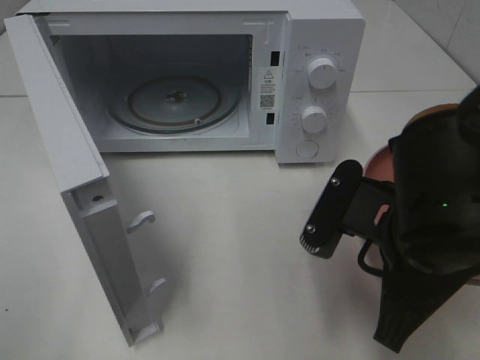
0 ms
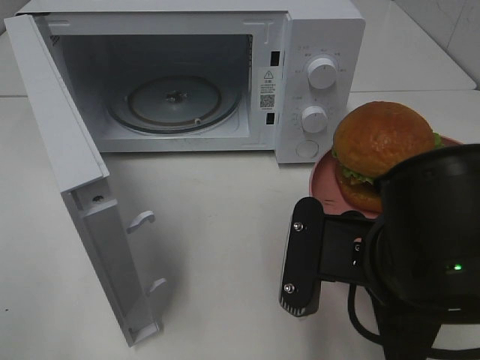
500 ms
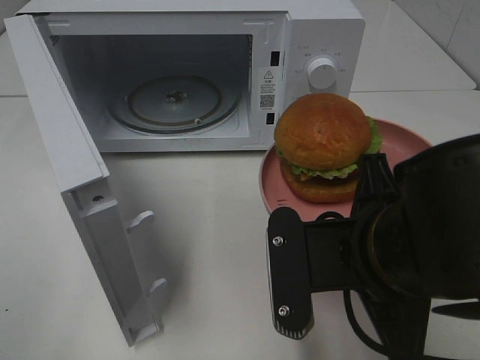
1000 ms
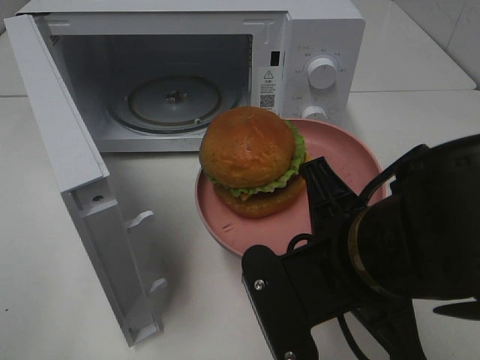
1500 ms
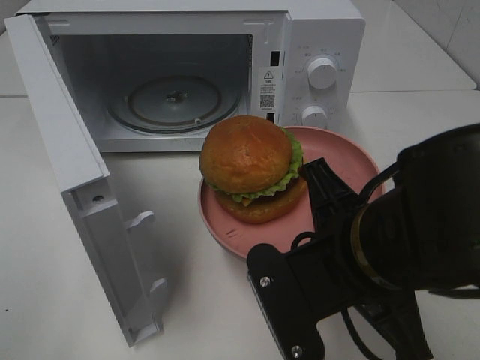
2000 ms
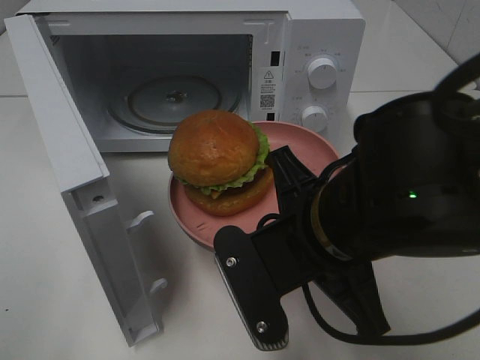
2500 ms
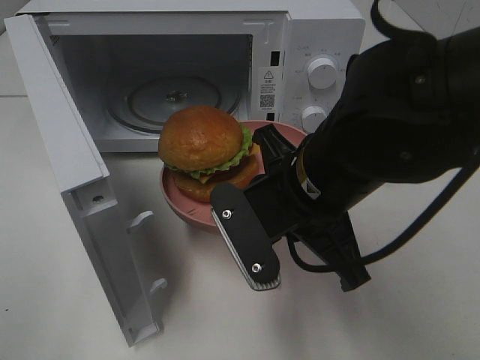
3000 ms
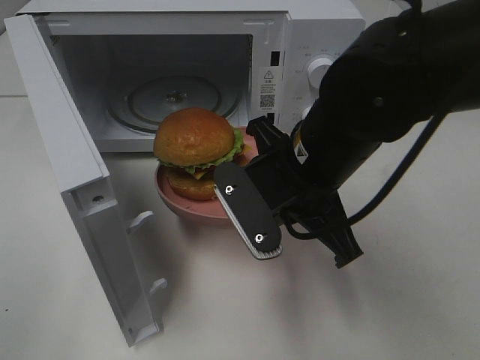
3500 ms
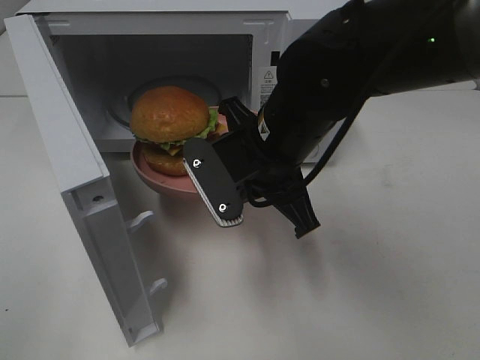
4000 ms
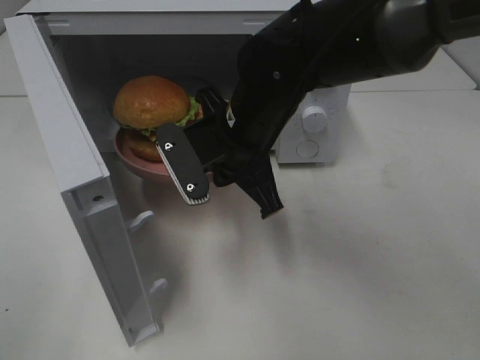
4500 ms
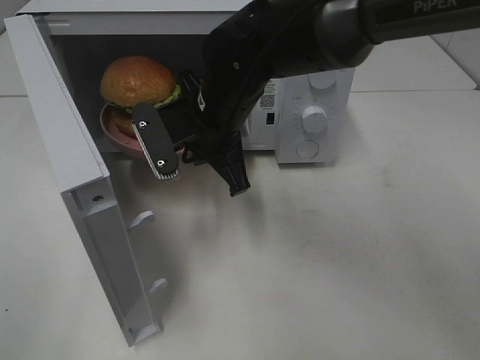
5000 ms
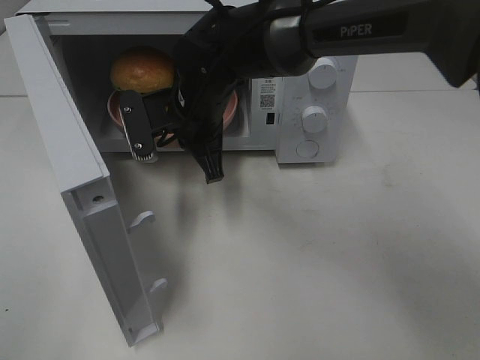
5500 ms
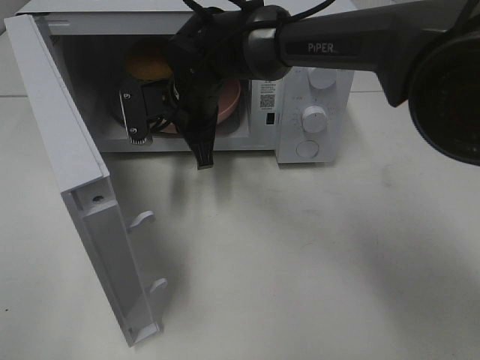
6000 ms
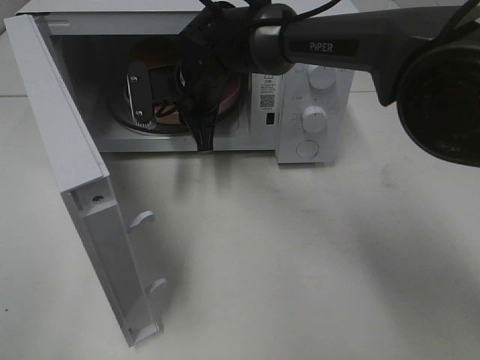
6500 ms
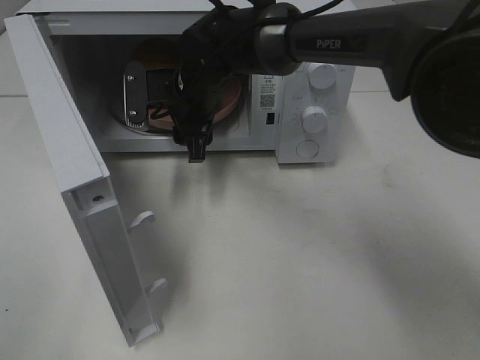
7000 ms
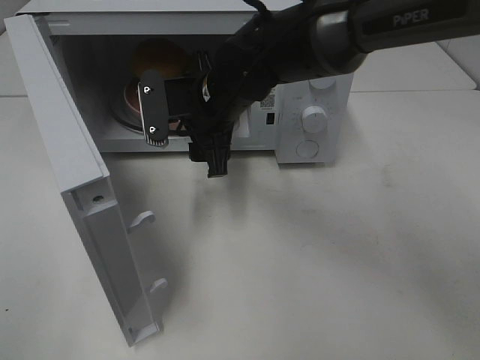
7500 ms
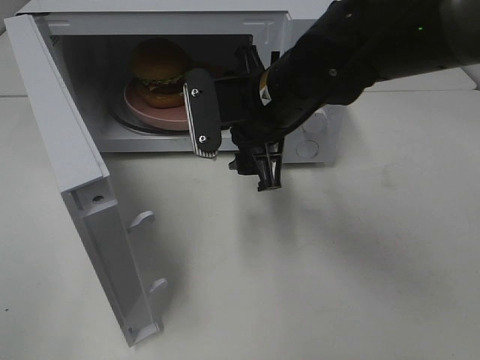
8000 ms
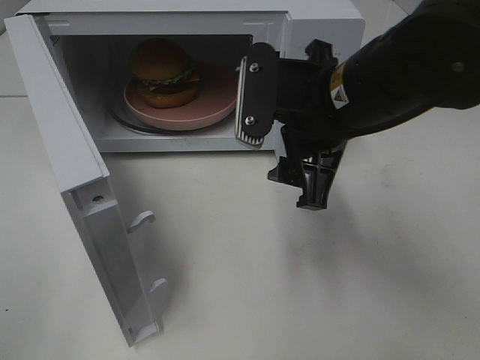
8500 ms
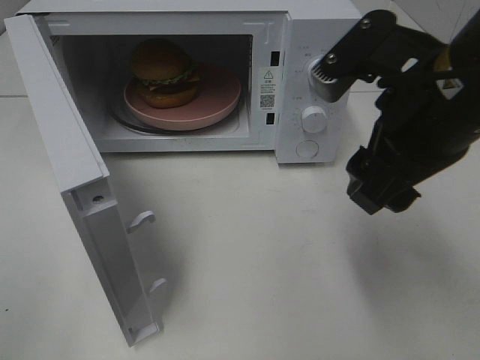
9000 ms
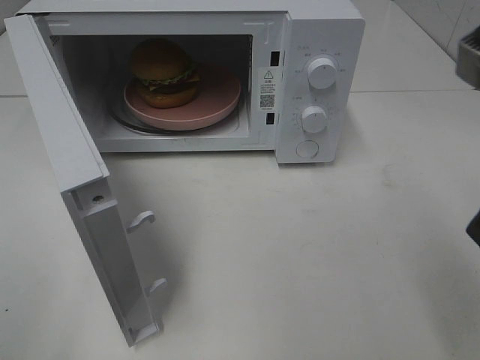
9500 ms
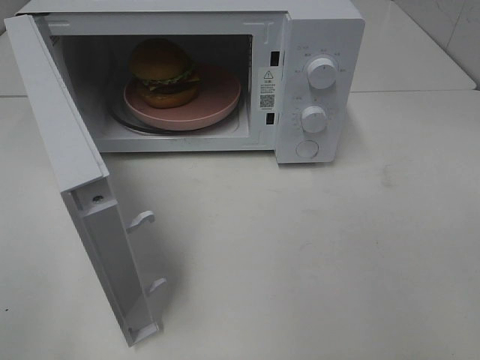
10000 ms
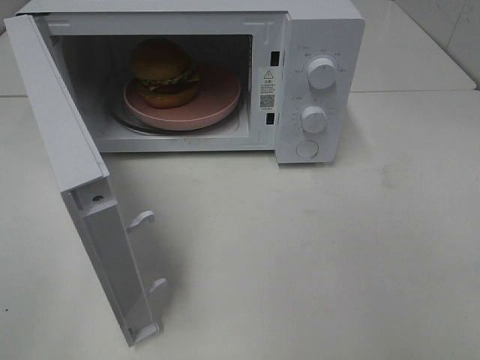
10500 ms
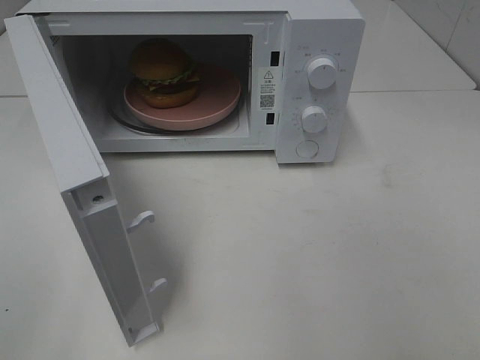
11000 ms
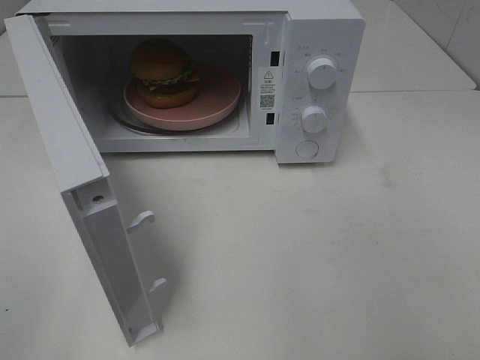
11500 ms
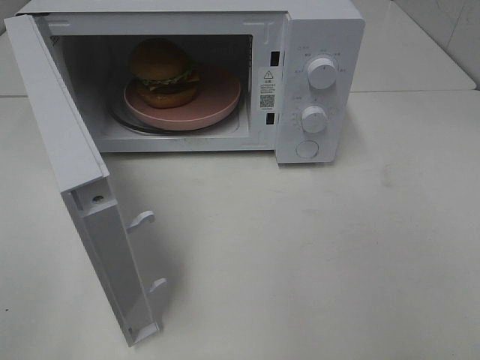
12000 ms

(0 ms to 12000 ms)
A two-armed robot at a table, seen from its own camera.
Task of the whole recording: Heat the burger.
Step, 0 ms - 6500 ms: Right hand: place the plate in the microwave.
2000 ms - 4000 ms: The right gripper heads forward, covering about 15 cm.
4000 ms - 6000 ms: The right gripper moves forward and to the left, about 15 cm.
6000 ms - 8000 ms: The right gripper is displaced to the right and backward by about 15 cm, and opens up.
8000 ms - 10000 ms: The right gripper travels backward, to the right and upward by about 35 cm.

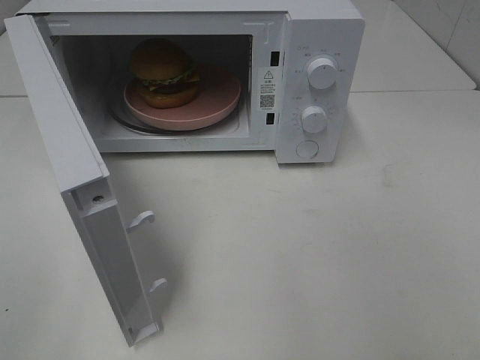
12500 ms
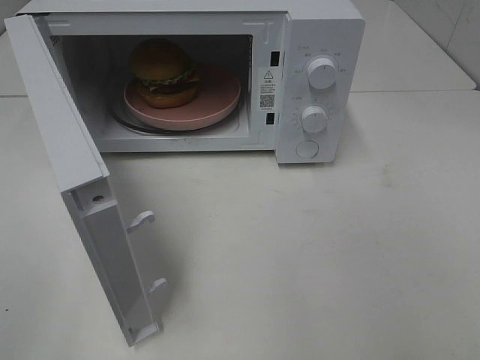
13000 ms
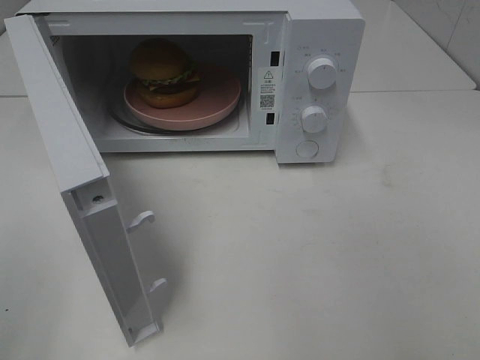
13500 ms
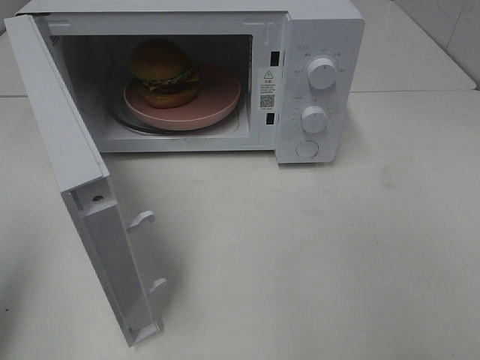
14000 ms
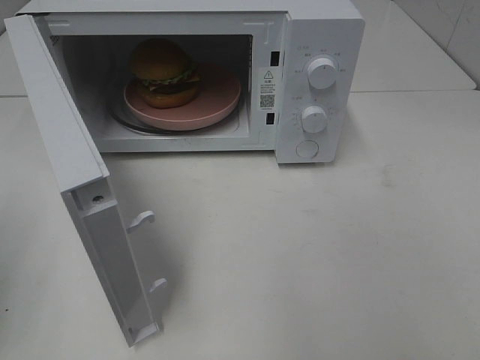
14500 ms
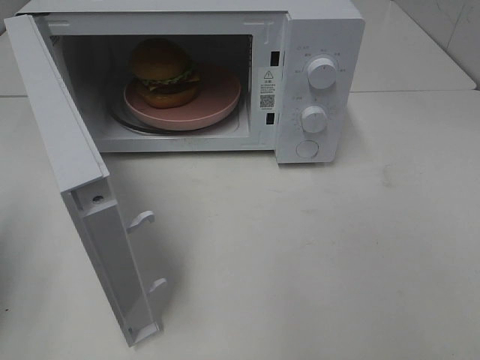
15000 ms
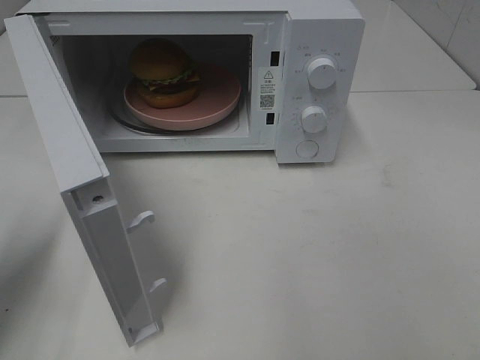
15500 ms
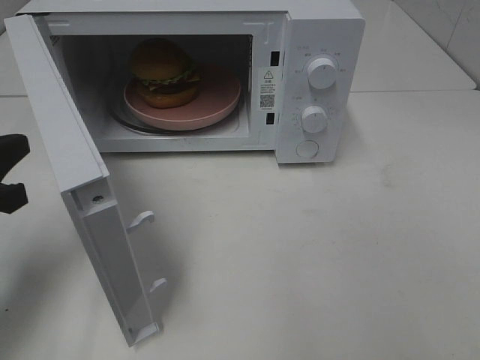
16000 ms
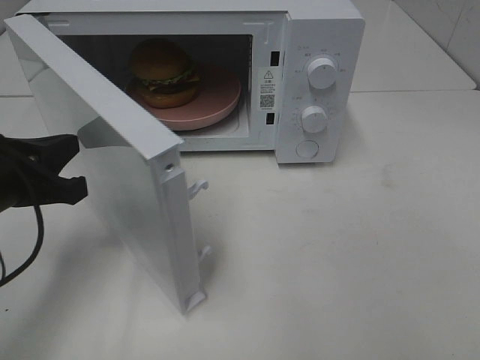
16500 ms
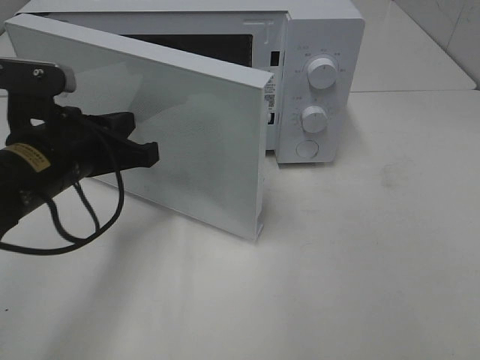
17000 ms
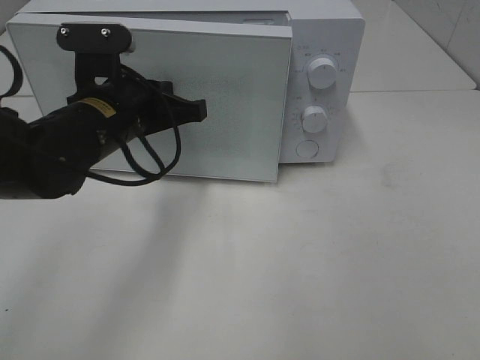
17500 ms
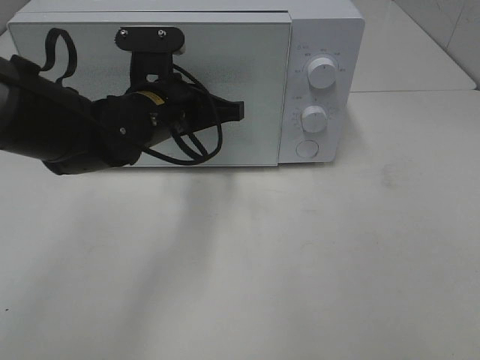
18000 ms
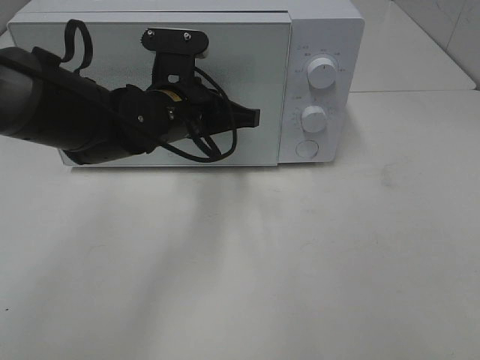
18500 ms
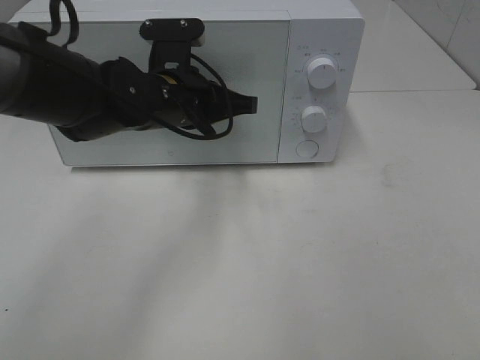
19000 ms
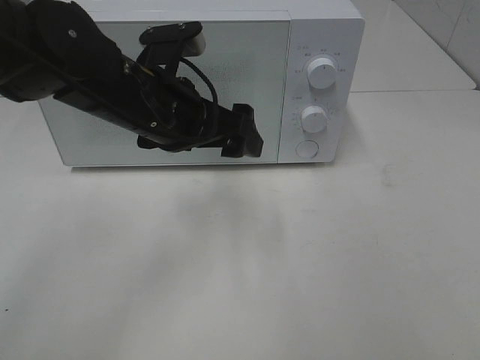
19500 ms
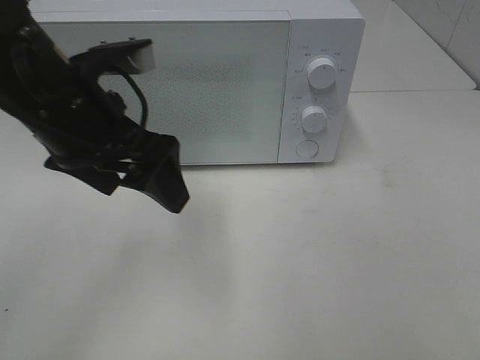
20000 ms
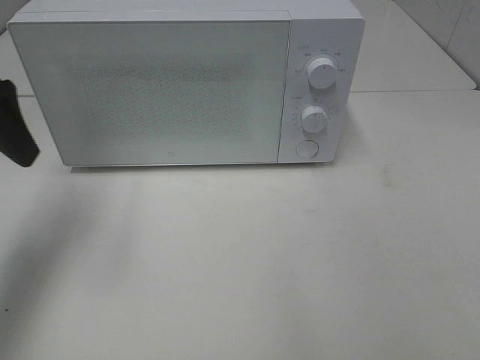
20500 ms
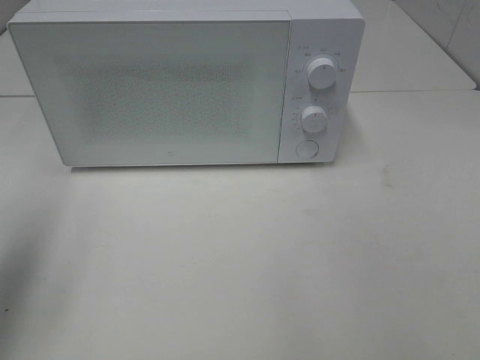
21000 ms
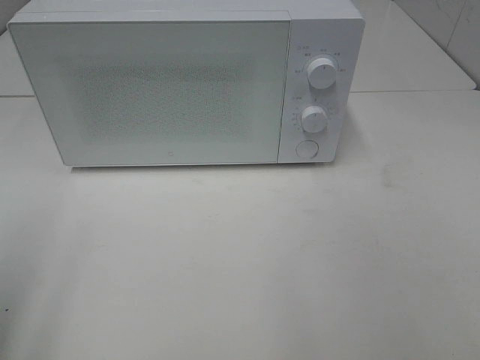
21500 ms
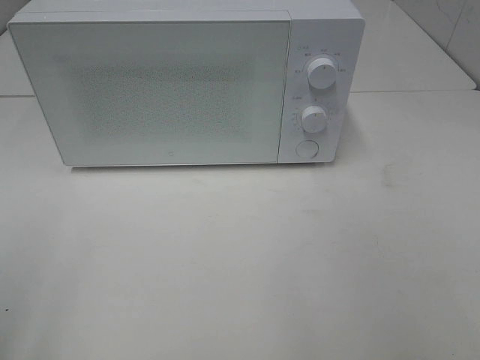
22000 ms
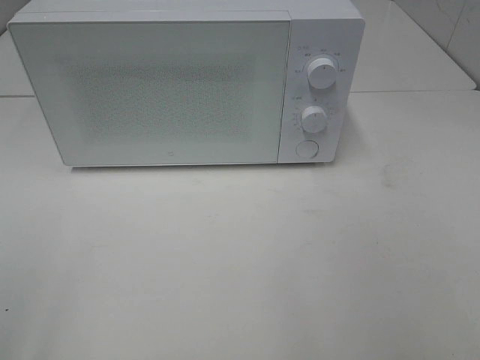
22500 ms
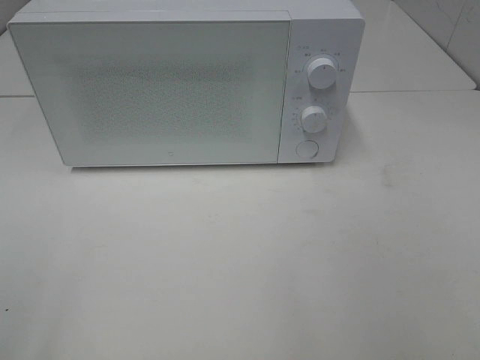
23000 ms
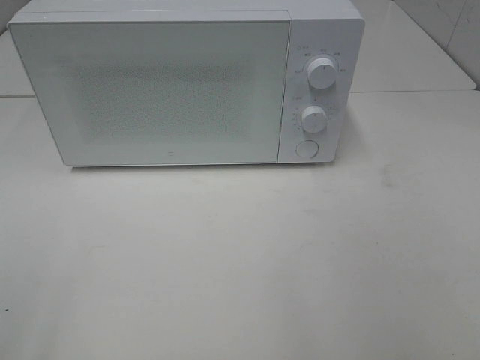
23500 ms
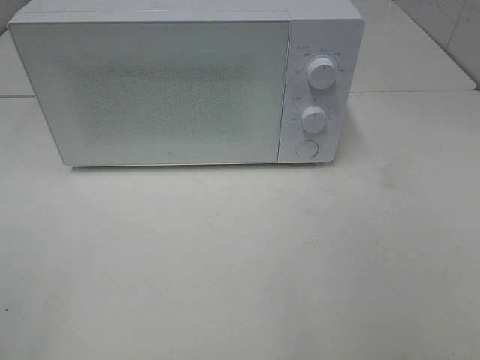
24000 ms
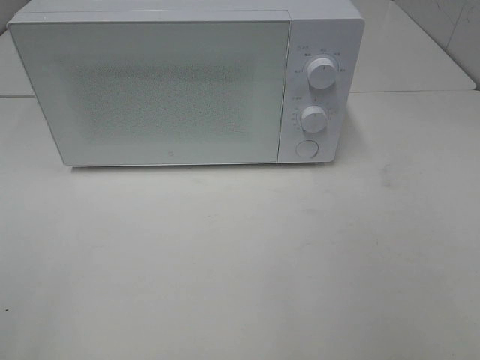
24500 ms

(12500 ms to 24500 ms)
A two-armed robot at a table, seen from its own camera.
Task of the whole recording: Heat the burger.
Step, 12500 ms - 19000 ms: Left hand: close the microwave door.
14500 ms - 16500 ms: The left gripper is displaced to the right, forward and downward by about 15 cm.
16500 ms - 18500 ms: The left gripper shifts about 20 cm to the right and forward.
18500 ms - 20500 ms: The left gripper shifts roughly 25 cm to the left and upward, and opens up.
20500 ms - 22500 ms: The left gripper shifts some 25 cm backward.

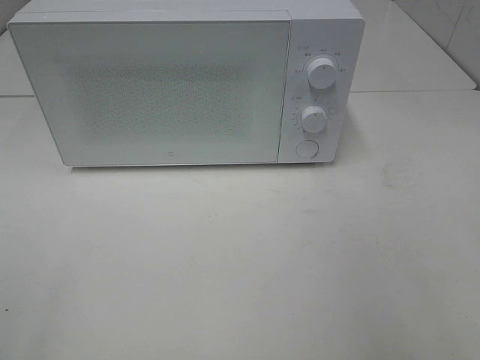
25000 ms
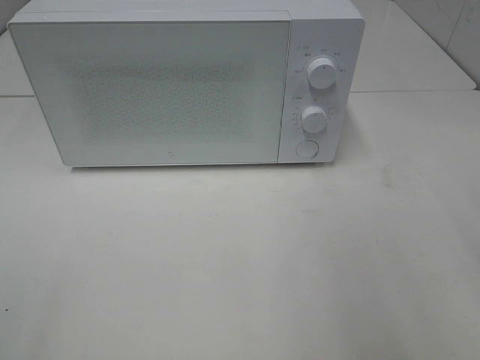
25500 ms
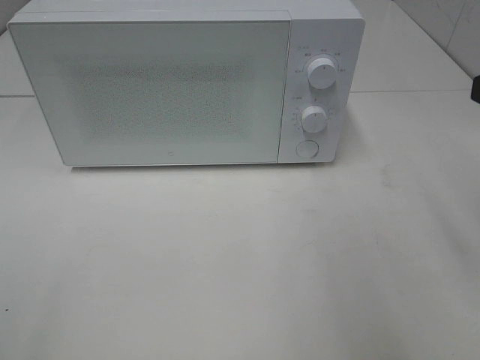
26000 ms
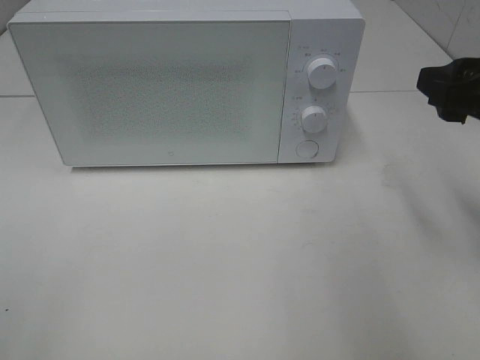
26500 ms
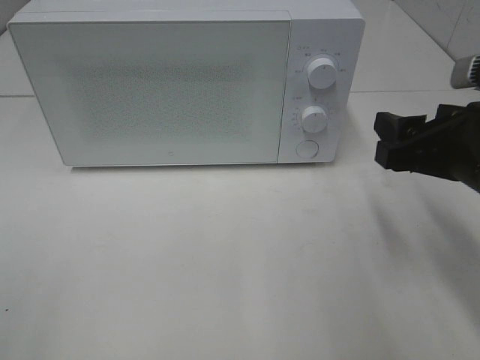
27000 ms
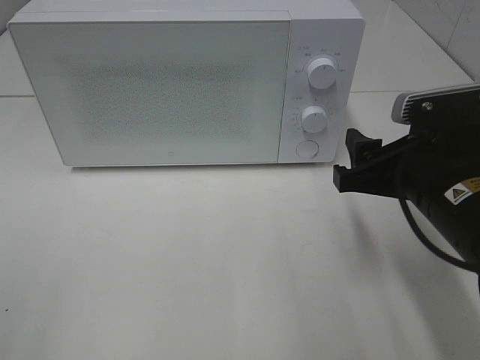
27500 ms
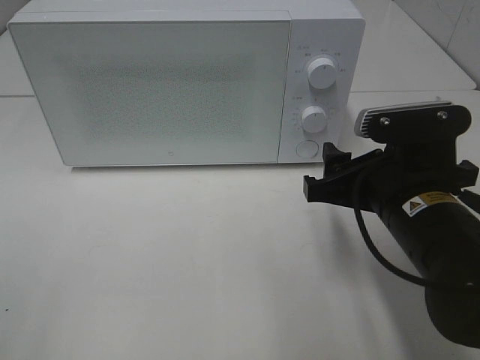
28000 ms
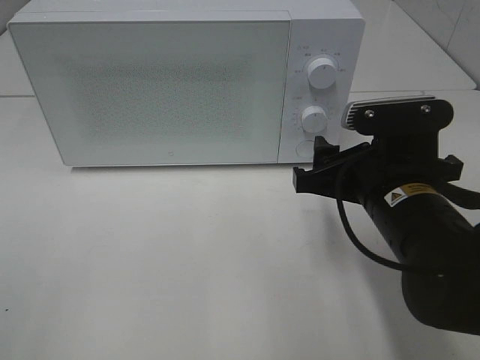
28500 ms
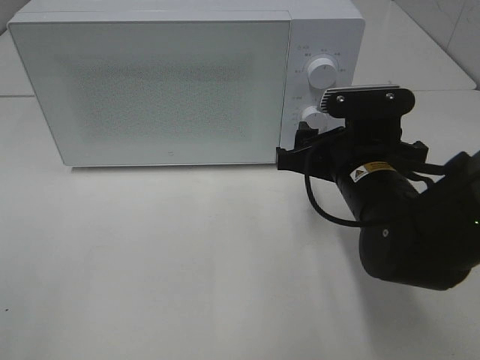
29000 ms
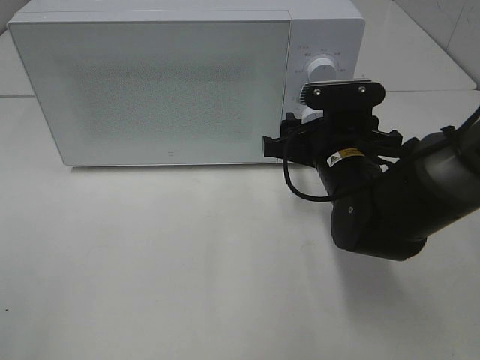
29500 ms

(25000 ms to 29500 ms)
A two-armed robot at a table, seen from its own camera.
Task of the whole recording: Heat the burger.
25000 ms - 27000 ms: The right gripper moves forward, downward and to the left, some 20 cm.
27000 ms - 29500 ms: The right gripper moves to the left, forward and downward, roughly 15 cm.
